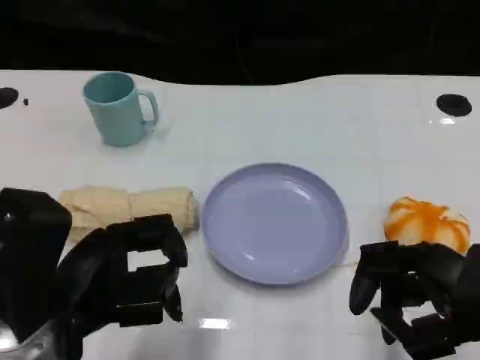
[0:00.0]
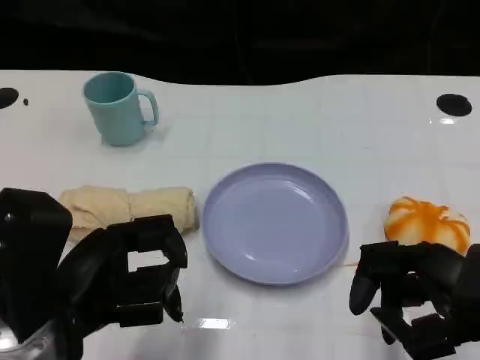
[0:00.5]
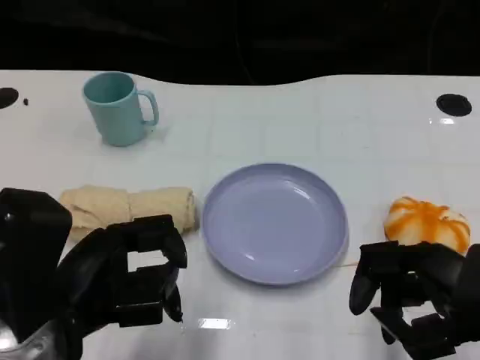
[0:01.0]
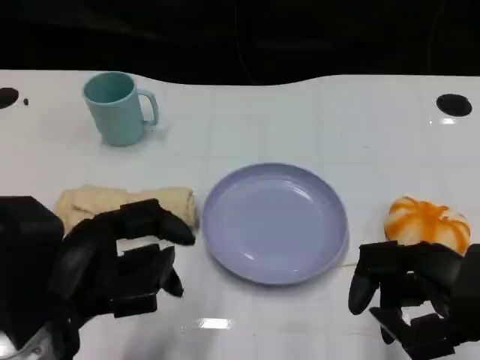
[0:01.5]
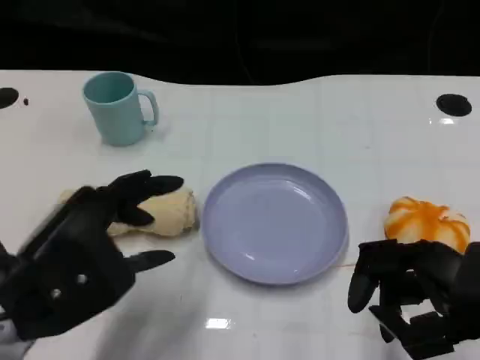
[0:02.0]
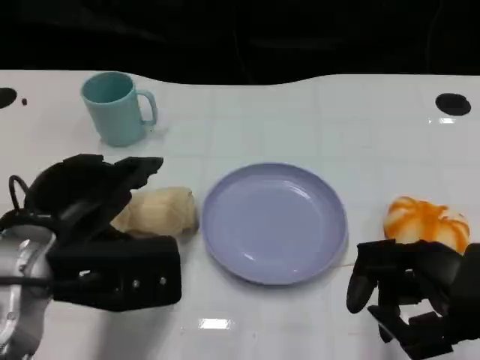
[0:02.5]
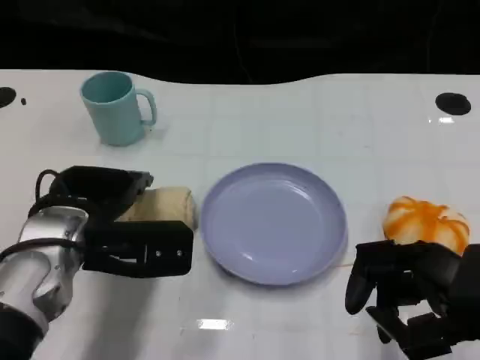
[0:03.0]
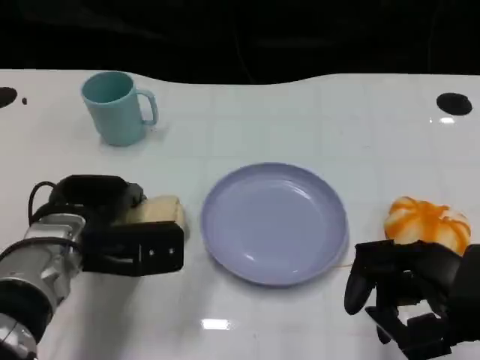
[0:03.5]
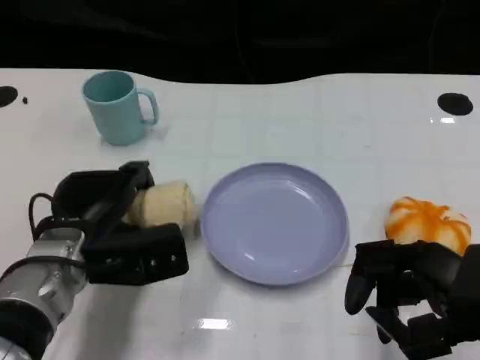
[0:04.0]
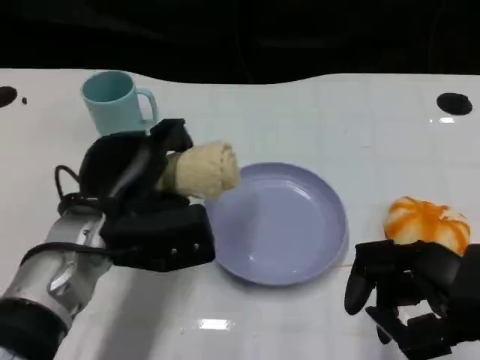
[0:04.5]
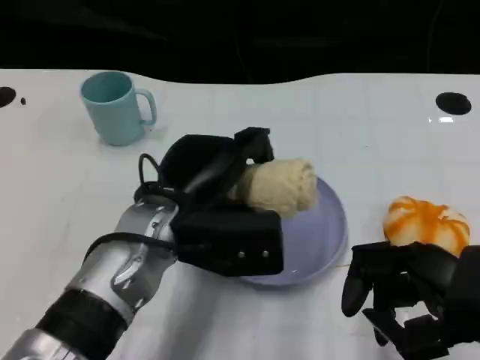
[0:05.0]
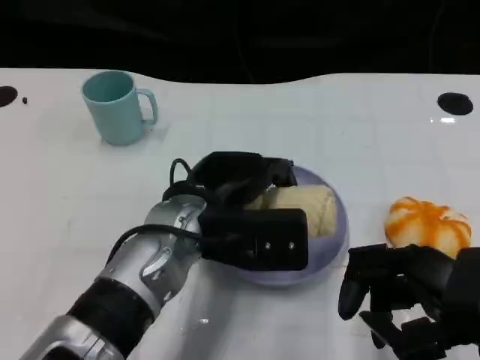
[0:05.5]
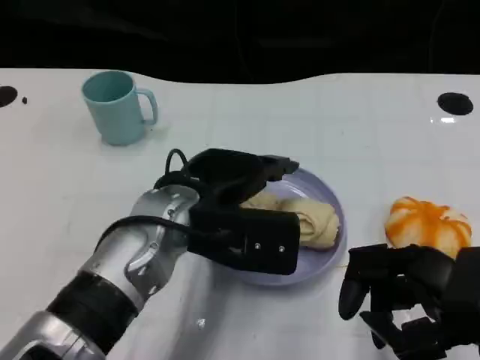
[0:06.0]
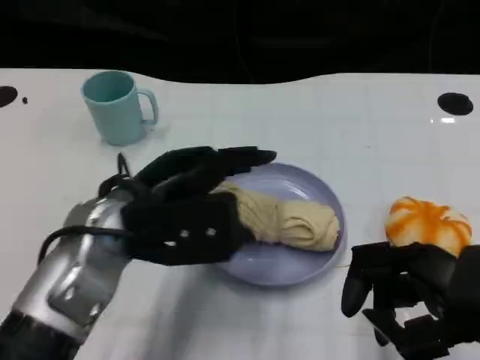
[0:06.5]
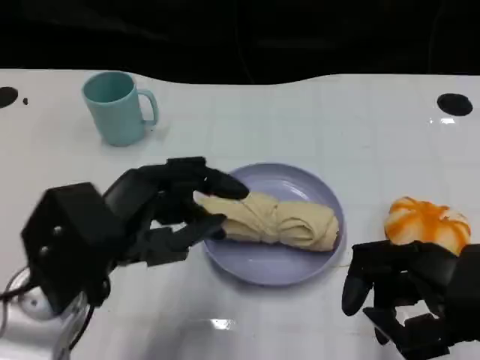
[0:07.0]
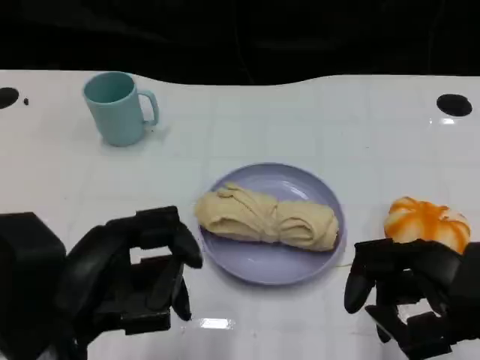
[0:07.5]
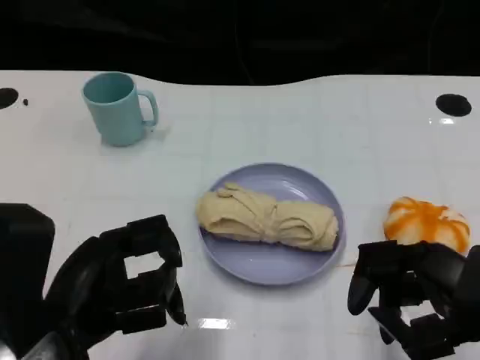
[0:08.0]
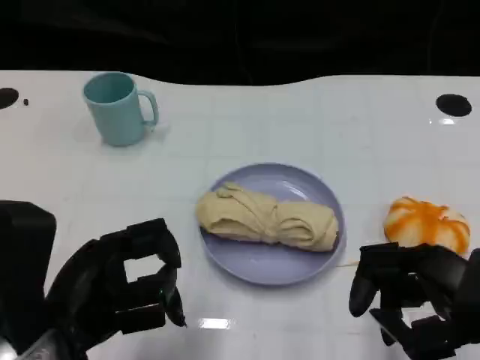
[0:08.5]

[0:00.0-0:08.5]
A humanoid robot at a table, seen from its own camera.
Task of the whole recording: Grasp the towel on the left side of the plate with the left hand and place it into the plate.
0:02.0 to 0:04.0: The left hand goes roughly 10 cm forward and downward.
0:04.0 to 0:06.5: The left hand is displaced upward by about 10 cm.
0:06.5 to 0:08.5: The left hand travels backward and to the left by approximately 10 cm.

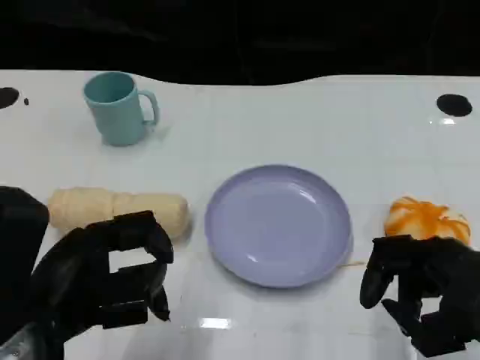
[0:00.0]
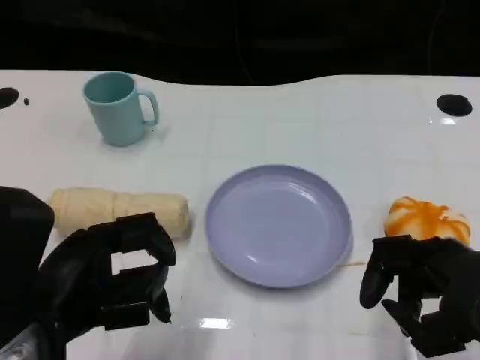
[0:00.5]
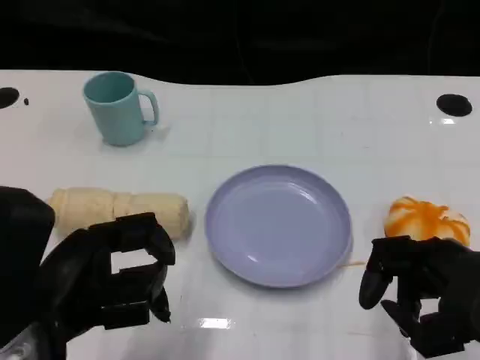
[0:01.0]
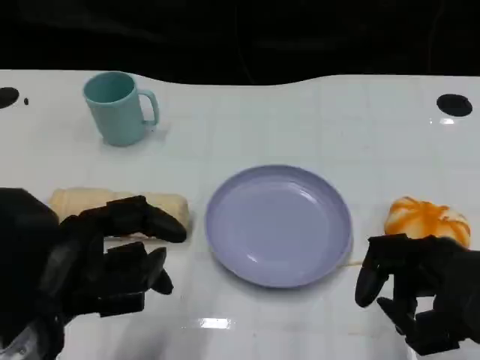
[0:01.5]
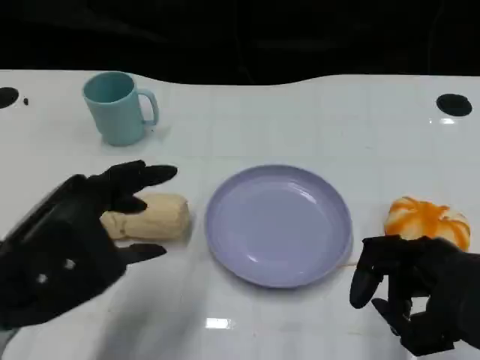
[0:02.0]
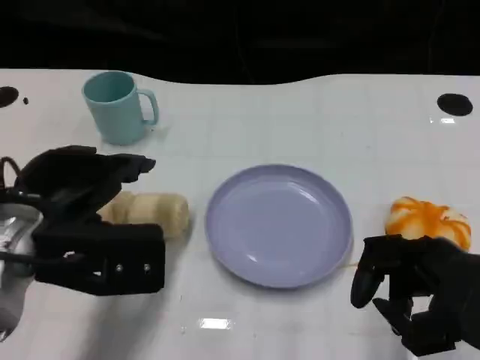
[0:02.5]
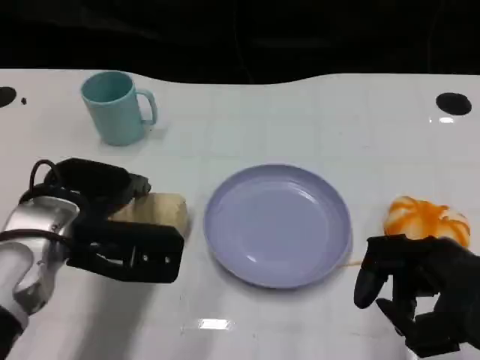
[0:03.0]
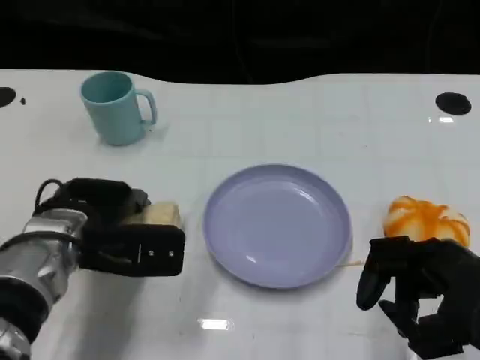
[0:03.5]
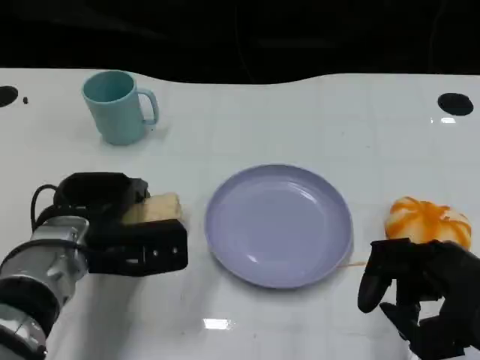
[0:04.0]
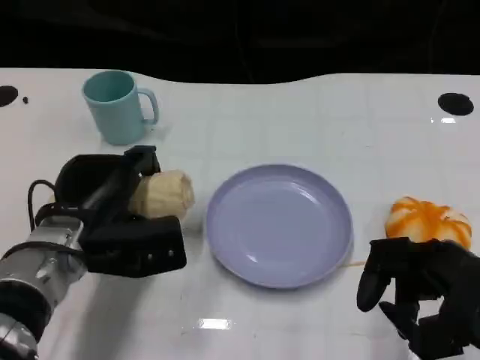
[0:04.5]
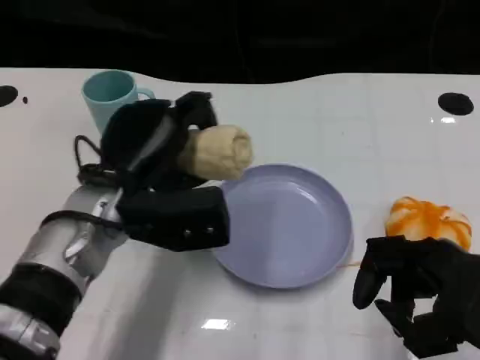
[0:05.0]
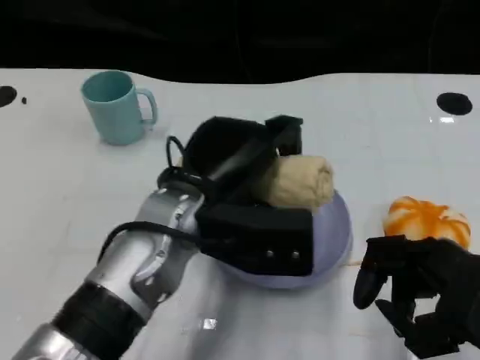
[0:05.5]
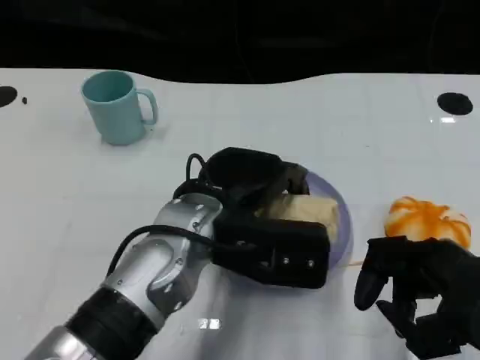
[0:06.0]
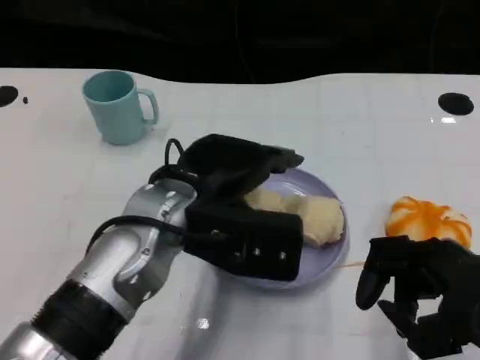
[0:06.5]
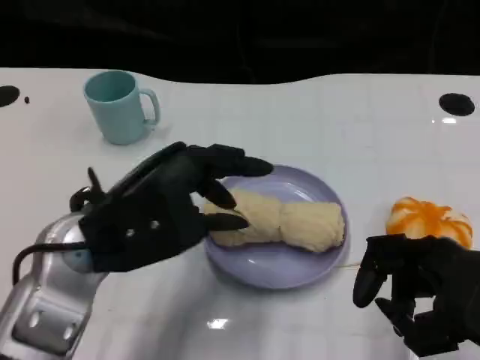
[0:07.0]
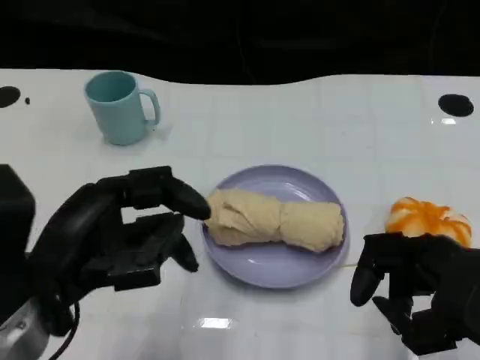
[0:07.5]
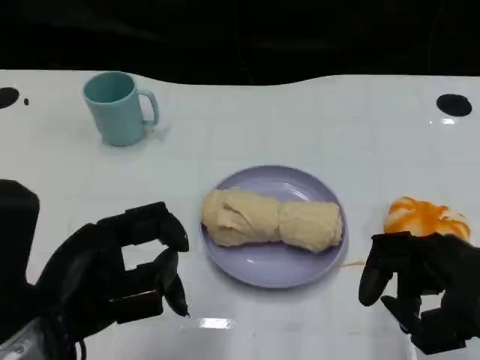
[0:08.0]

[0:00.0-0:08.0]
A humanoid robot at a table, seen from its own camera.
Task of the whole recording: Grasp the towel on the left side of the plate with the left hand and place it into the plate.
0:02.0 to 0:04.0: The left hand moves downward and forward, approximately 15 cm.
0:04.0 to 0:06.0: The left hand goes about 15 cm to the right and upward.
0:06.0 to 0:08.0: The left hand is displaced to the left and backward by about 15 cm.

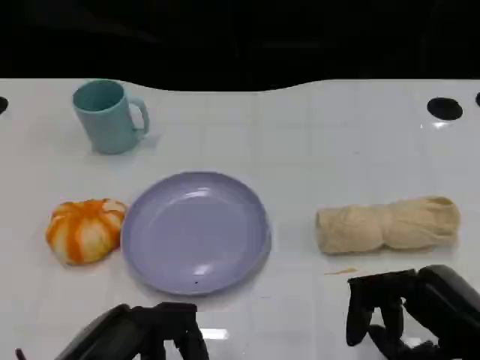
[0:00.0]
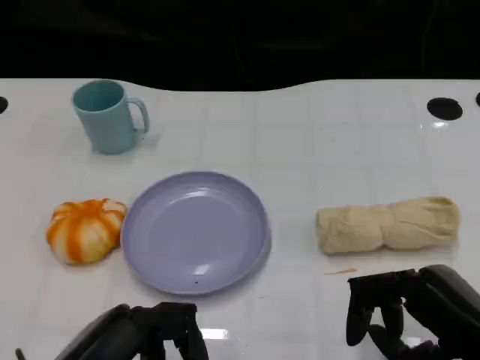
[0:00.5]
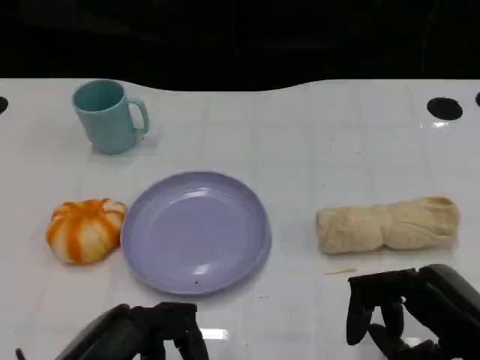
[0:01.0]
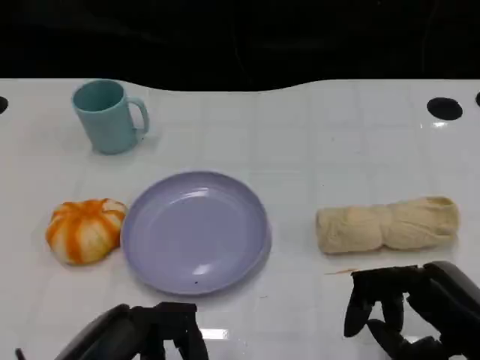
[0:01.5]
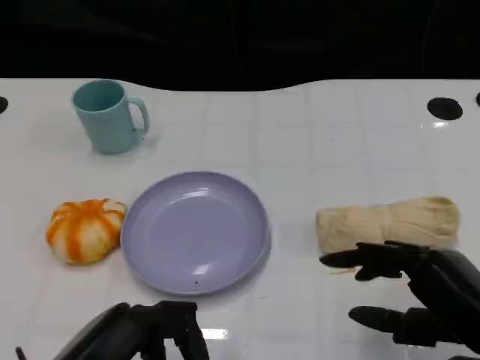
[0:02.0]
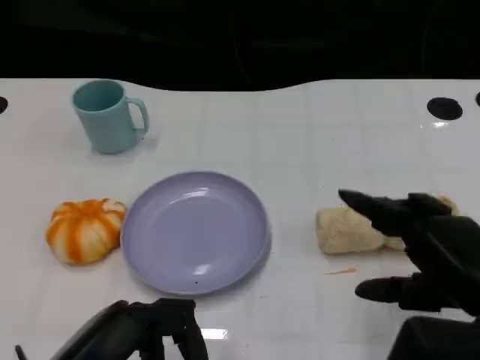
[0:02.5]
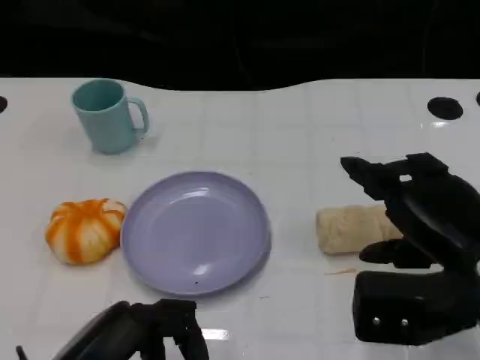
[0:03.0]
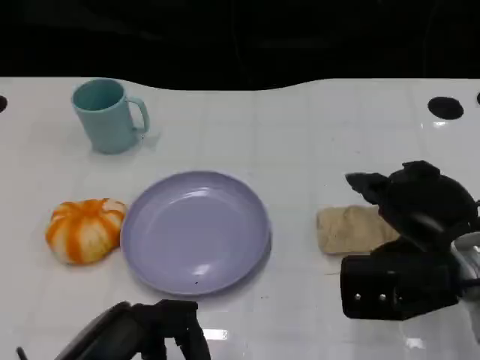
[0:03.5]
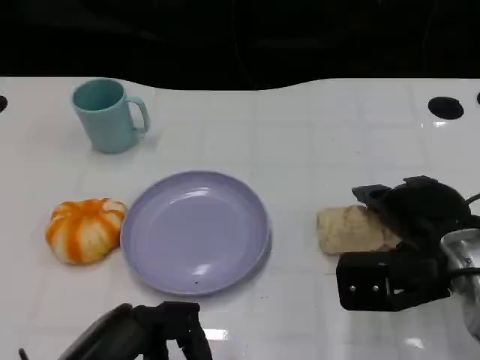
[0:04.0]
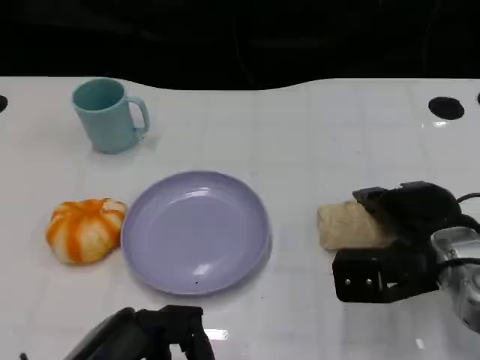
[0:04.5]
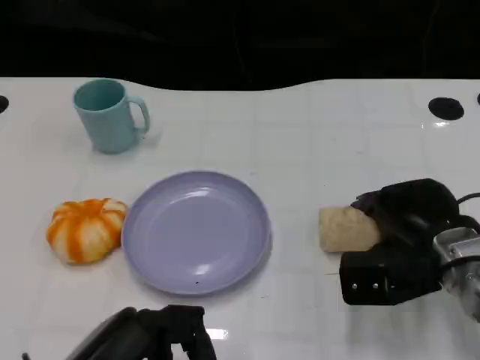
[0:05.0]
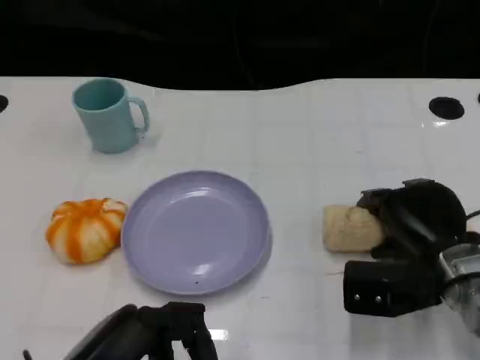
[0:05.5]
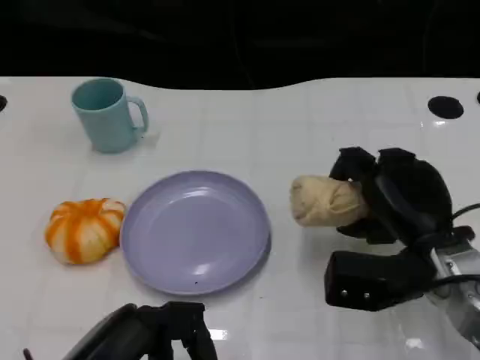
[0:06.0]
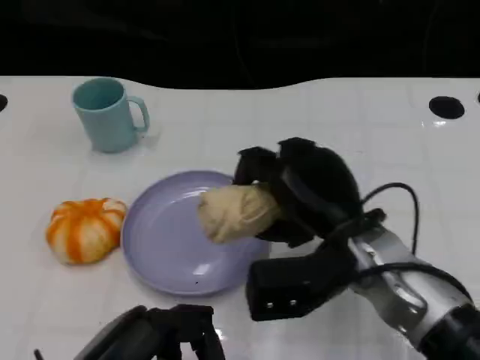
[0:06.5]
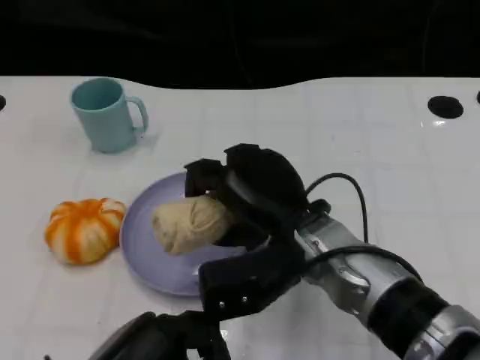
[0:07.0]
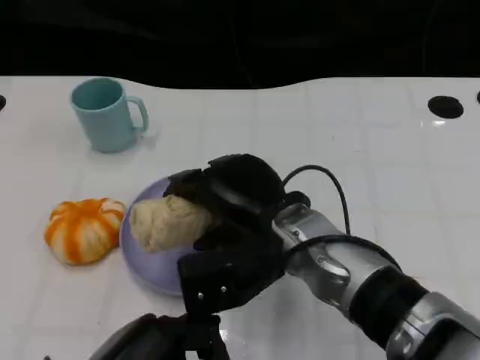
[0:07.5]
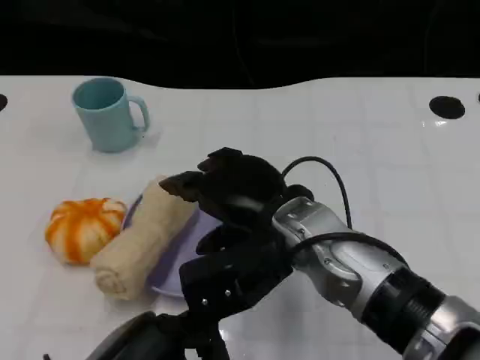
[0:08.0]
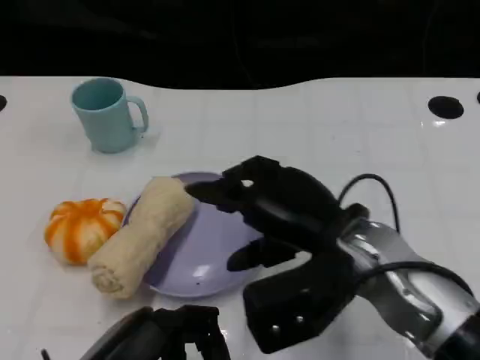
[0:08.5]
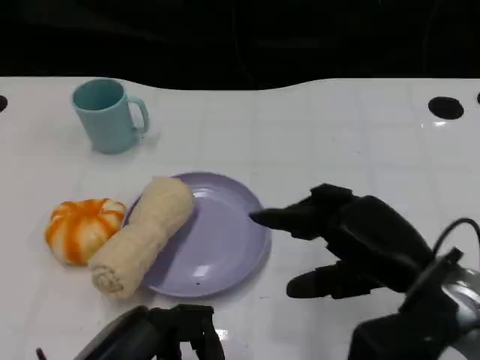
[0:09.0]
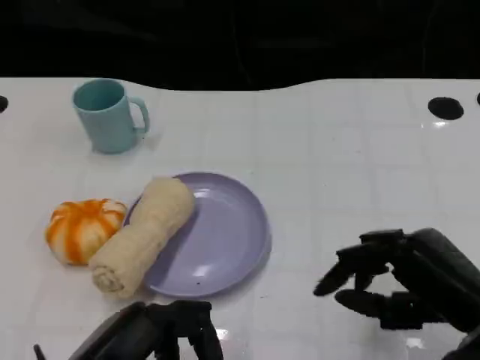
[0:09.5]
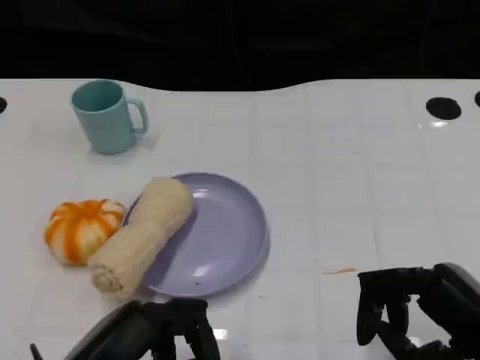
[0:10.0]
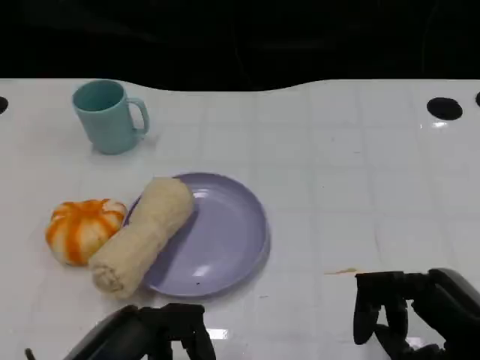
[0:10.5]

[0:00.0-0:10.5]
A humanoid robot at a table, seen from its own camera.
Task of the whole recording: Grasp the towel on the left side of the plate with the left hand and place it into the plate.
0:00.0 to 0:02.0: The hands make only small movements.
0:02.0 to 0:04.0: The right hand is displaced forward by some 10 cm.
0:04.0 to 0:06.5: The right hand heads to the left, covering about 10 cm.
0:06.5 to 0:08.5: The right hand travels to the left and back again, about 5 cm each way.
0:08.5 to 0:10.5: The right hand travels to the right and backward by some 15 cm.
